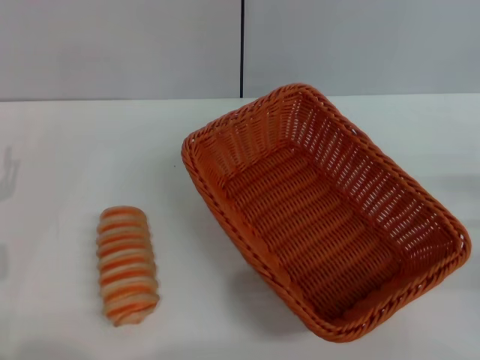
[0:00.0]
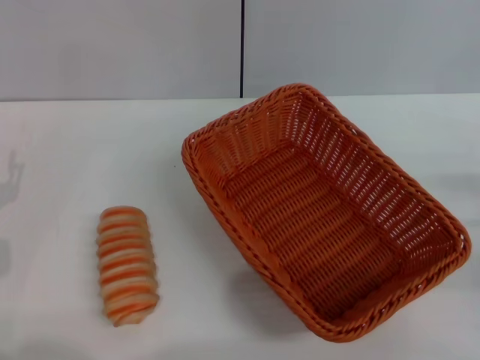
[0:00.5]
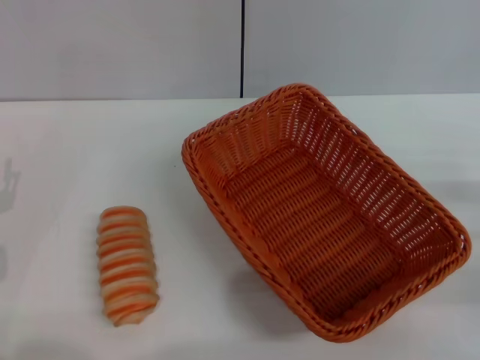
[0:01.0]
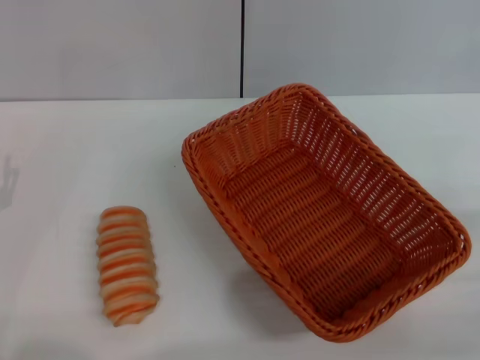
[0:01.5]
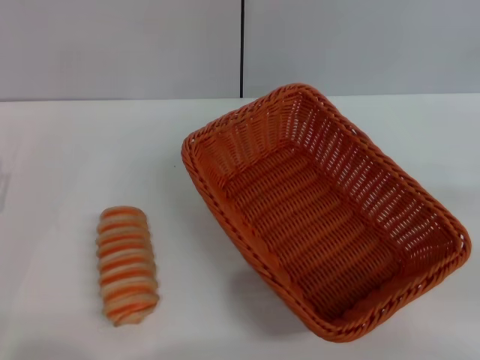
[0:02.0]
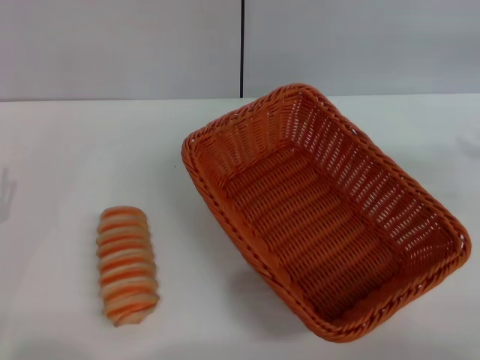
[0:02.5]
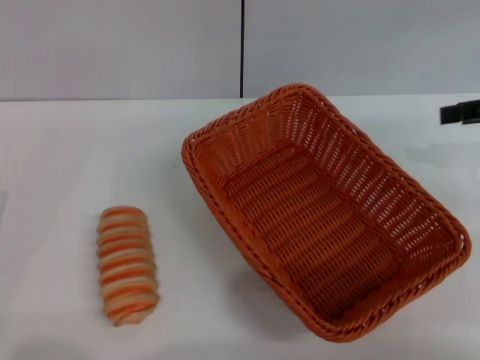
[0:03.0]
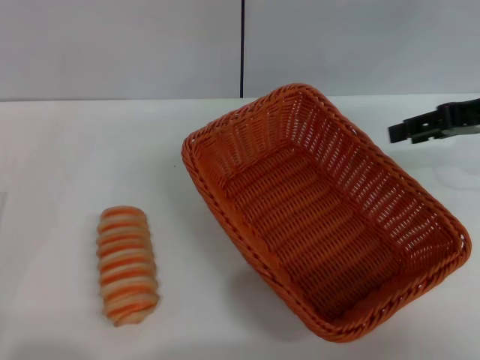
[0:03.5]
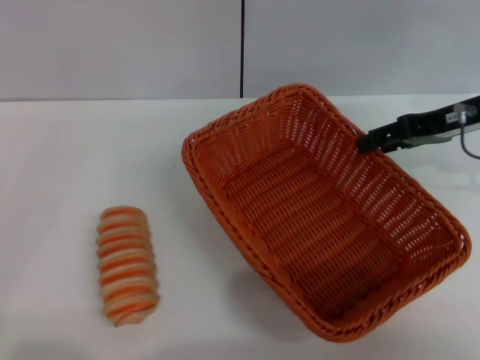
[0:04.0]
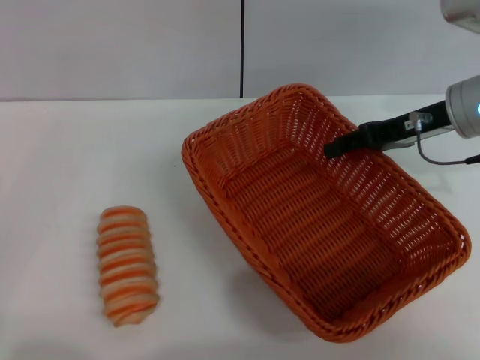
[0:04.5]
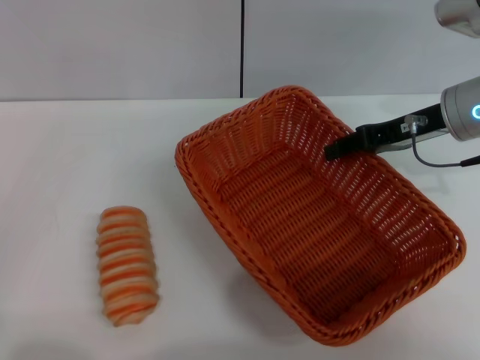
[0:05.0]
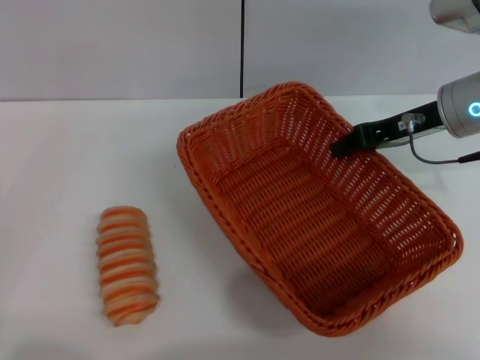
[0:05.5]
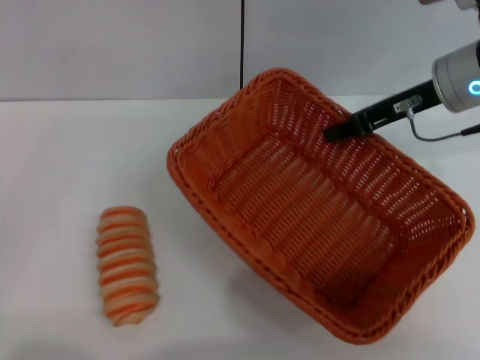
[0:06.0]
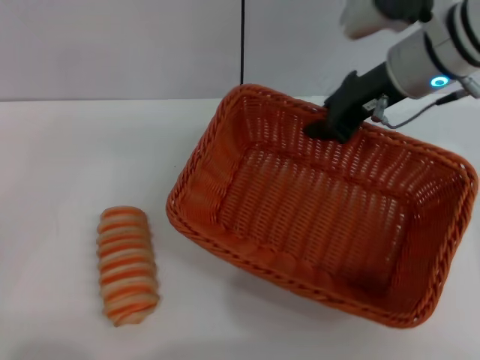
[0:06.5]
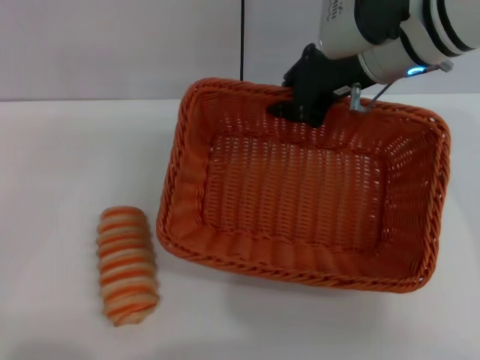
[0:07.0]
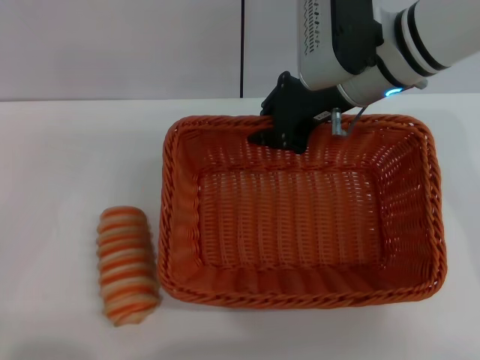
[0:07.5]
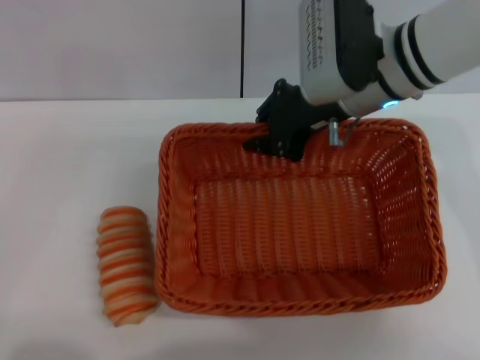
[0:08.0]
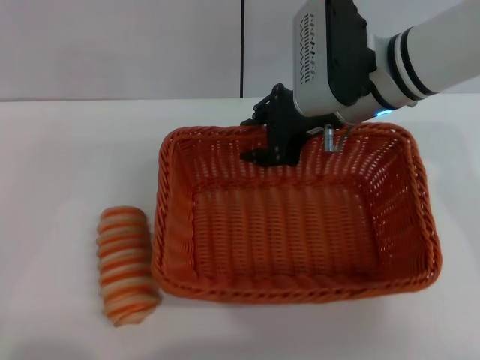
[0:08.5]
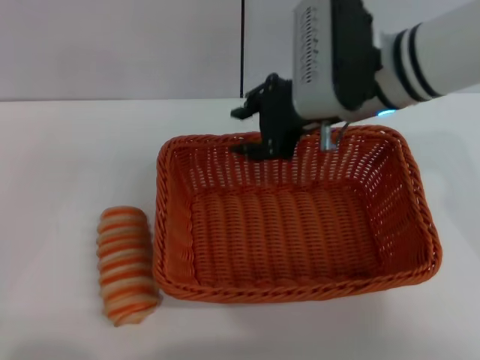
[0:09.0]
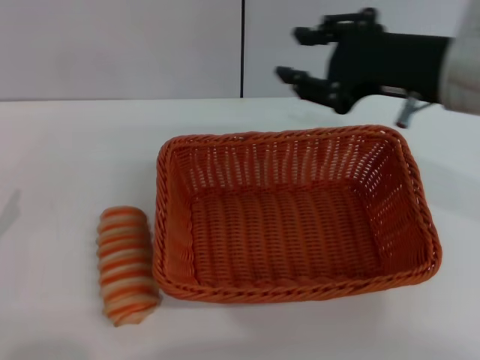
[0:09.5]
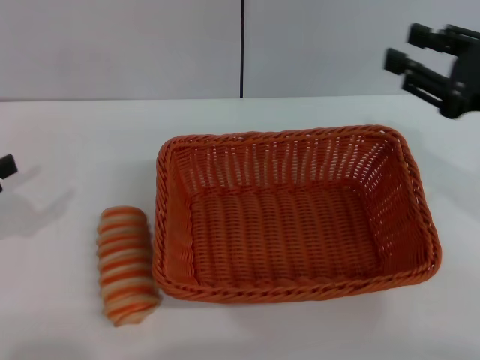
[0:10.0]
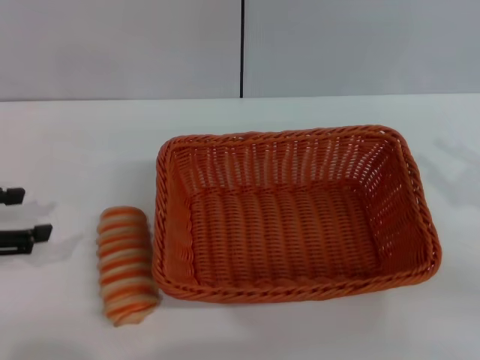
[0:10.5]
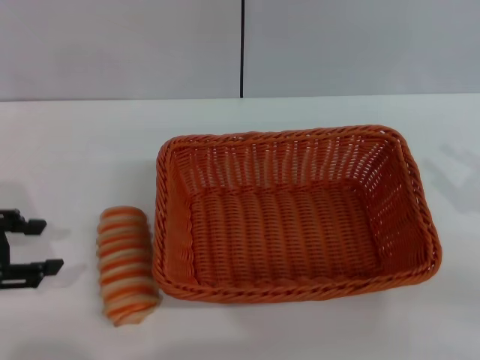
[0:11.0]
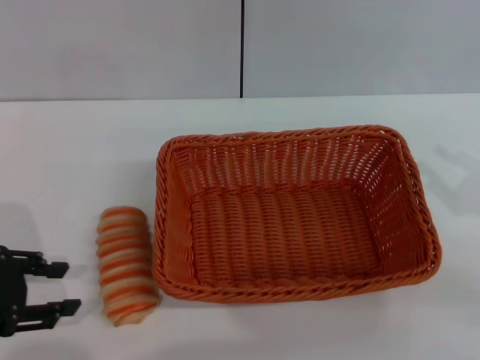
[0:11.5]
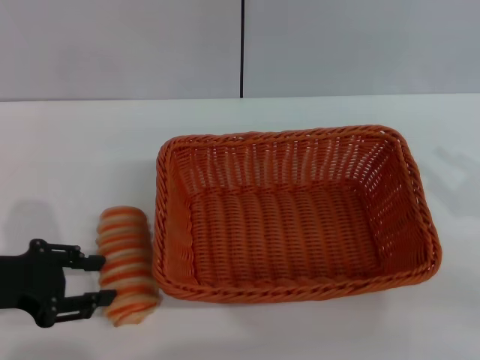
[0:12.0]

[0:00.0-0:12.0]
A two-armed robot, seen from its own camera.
Step, 0:00.0 to 0:05.5: Pick up the light basket with the right gripper.
Step, 0:06.0 to 0:09.0: Place the light basket in the center of view with the right gripper.
0:02.0 to 0:04.0: The right gripper moves forward and to the left, about 25 cm.
0:04.0 to 0:06.0: The right gripper goes roughly 5 cm to the left, and closes its fingers.
0:06.0 to 0:08.0: The right gripper goes some 10 cm to the left.
0:08.0 to 0:10.0: The left gripper travels upward by approximately 15 cm. The right gripper shifts approximately 20 cm to the right and backward, and opens its fingers.
0:10.0 to 0:12.0: The left gripper heads to the right, covering roughly 5 cm, while the right gripper moves to the right, downward and backward, about 10 cm.

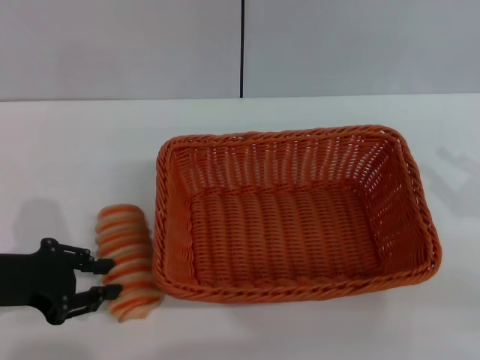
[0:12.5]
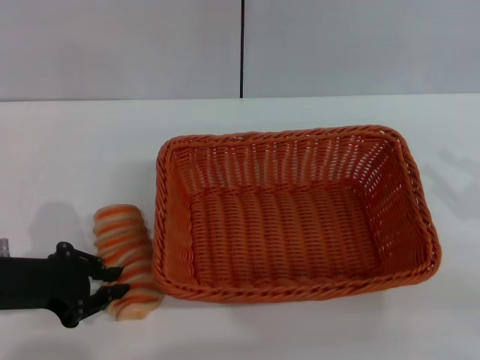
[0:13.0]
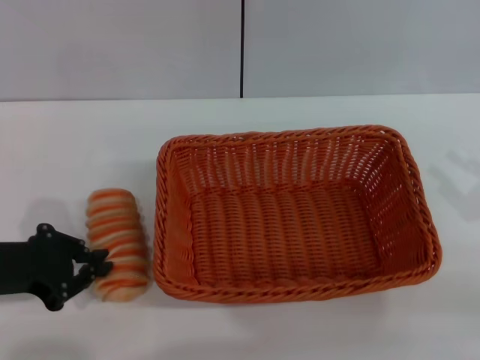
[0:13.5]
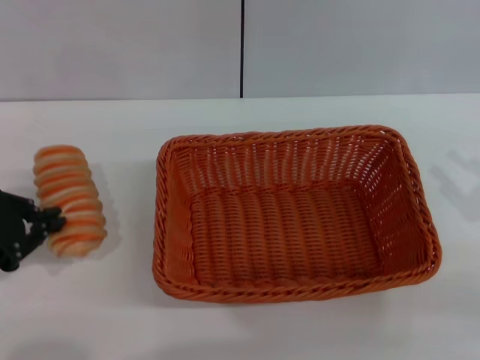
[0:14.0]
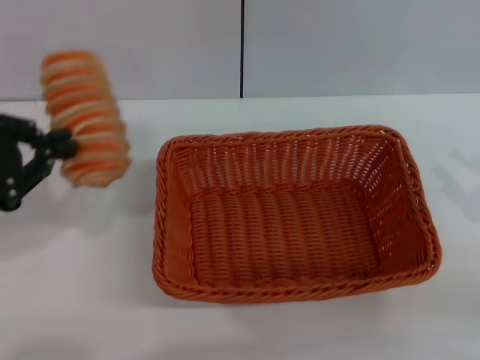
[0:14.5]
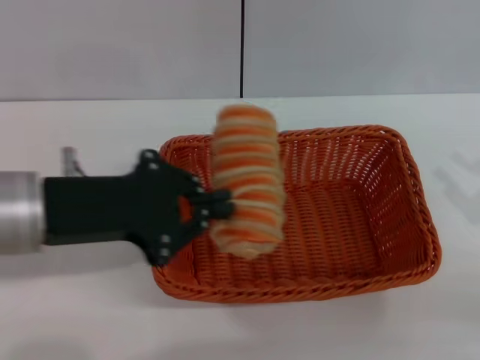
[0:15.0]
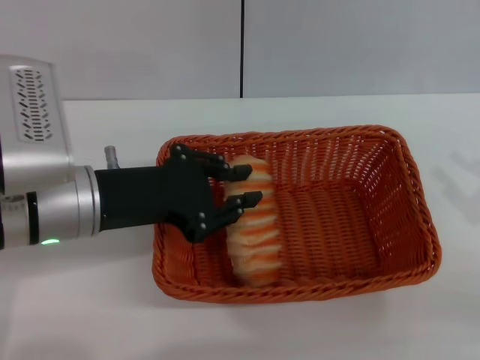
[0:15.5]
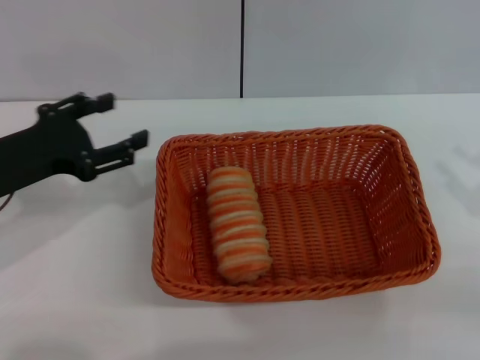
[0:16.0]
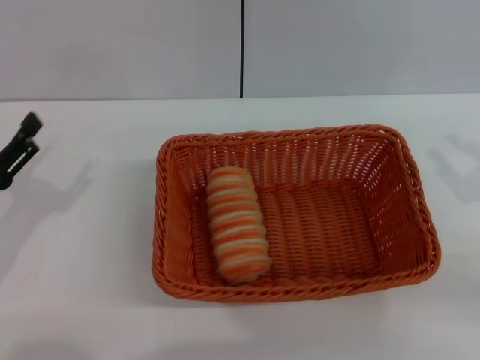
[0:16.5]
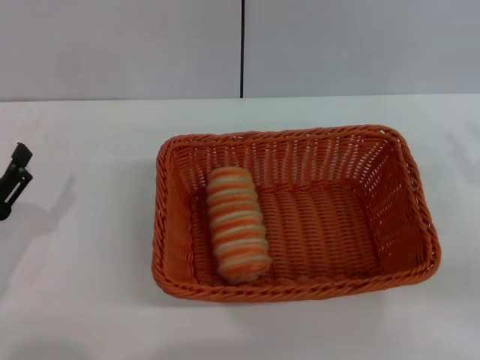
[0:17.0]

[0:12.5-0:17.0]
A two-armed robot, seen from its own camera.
Step, 0:14.5 to 0:15.5: Place the long bread into the light basket with the left gripper.
0:12.5 to 0:14.5: The left gripper is displaced upward by about 10 cm, and closes its fingers.
0:14.5 to 0:17.0: The right gripper changes place by about 5 cm. Meanwhile the left gripper heads downward, covering roughly 15 cm, and opens up.
